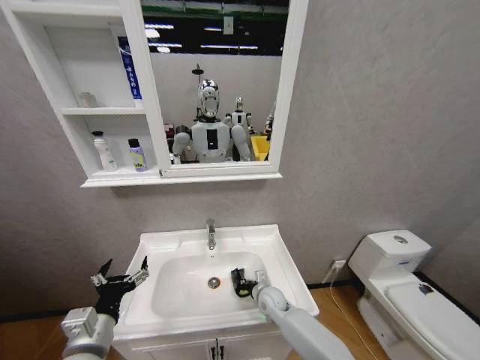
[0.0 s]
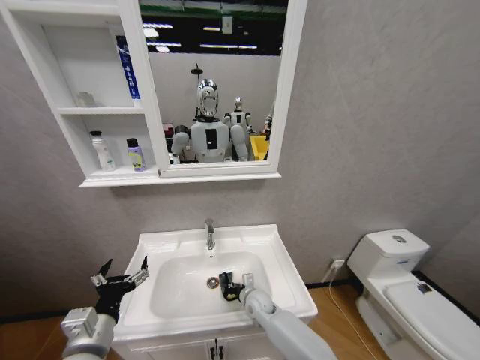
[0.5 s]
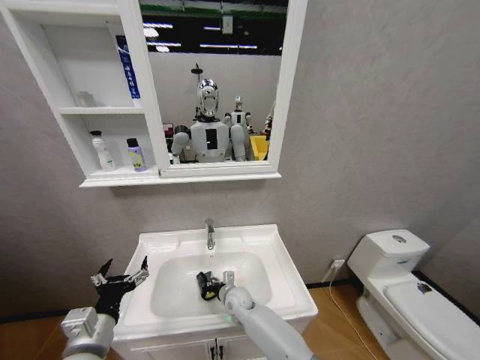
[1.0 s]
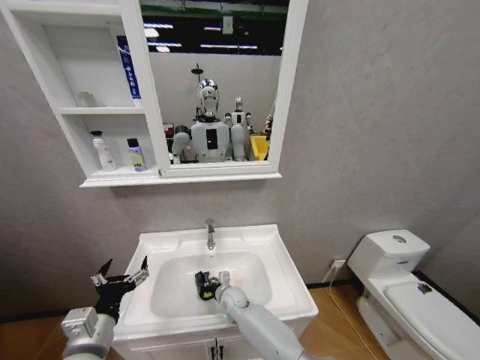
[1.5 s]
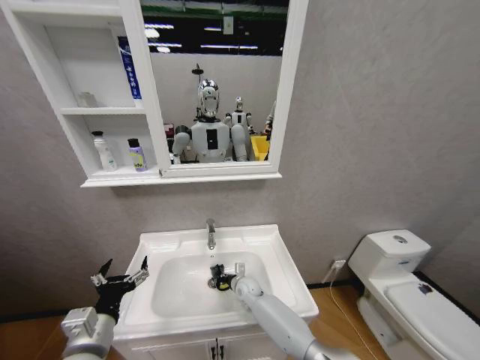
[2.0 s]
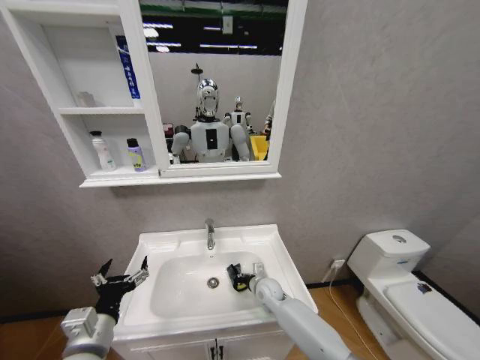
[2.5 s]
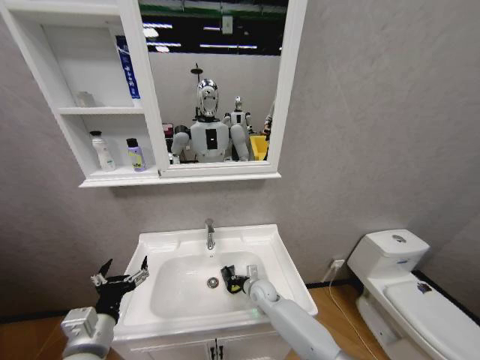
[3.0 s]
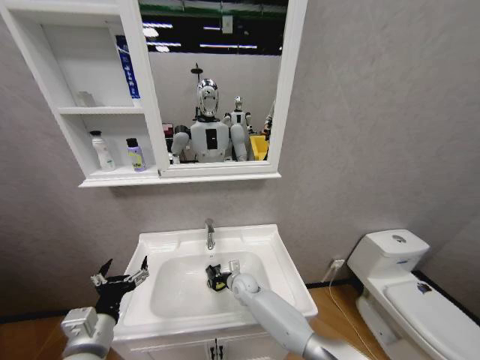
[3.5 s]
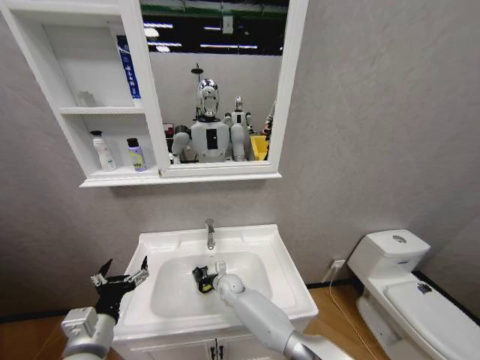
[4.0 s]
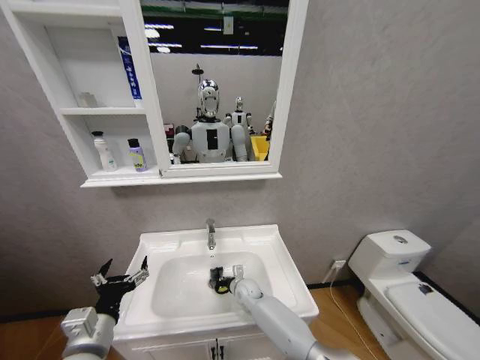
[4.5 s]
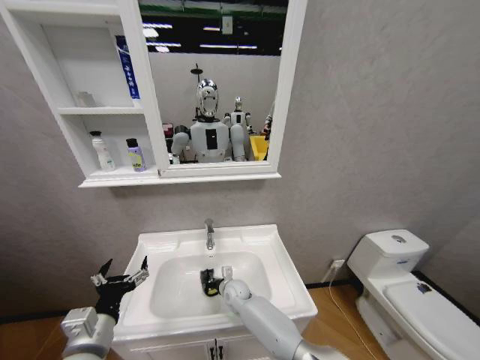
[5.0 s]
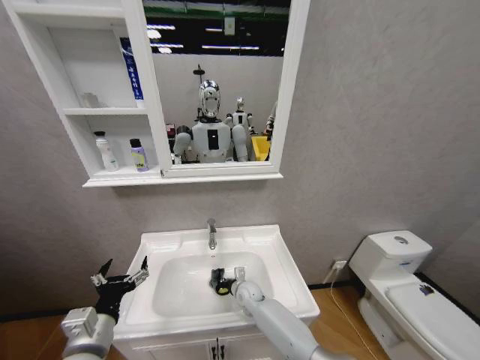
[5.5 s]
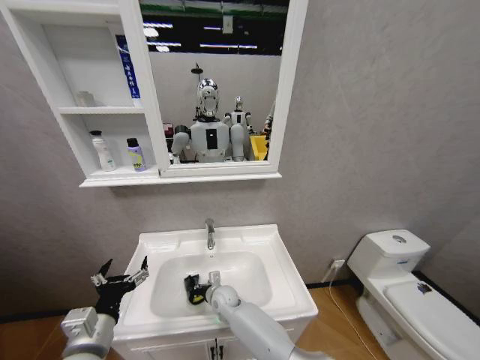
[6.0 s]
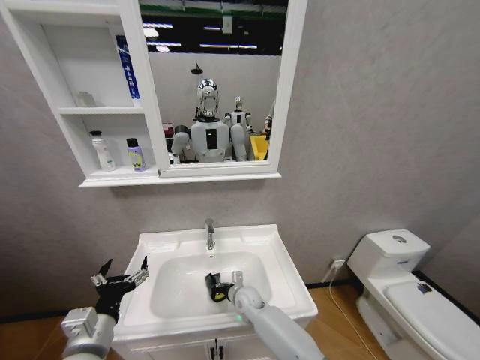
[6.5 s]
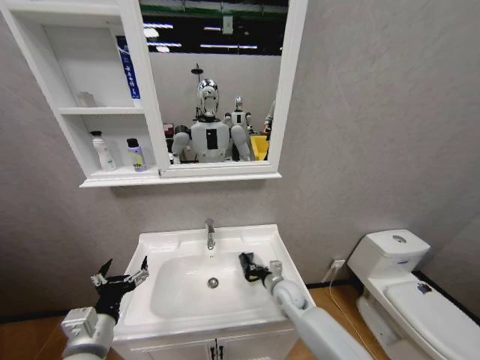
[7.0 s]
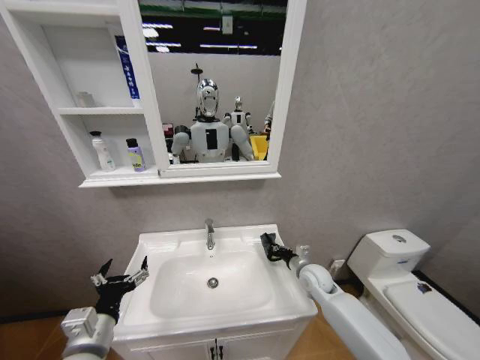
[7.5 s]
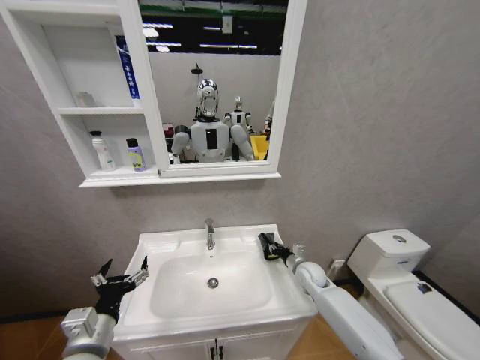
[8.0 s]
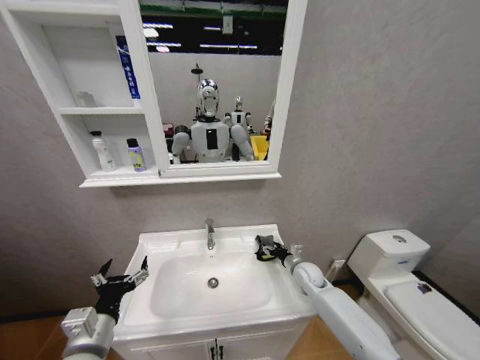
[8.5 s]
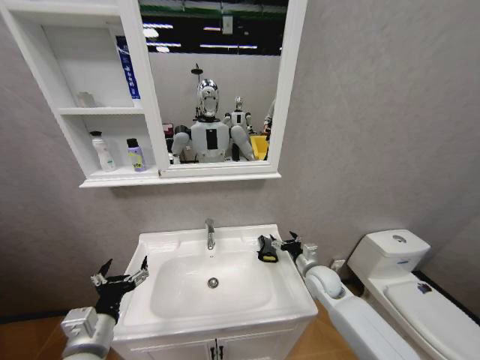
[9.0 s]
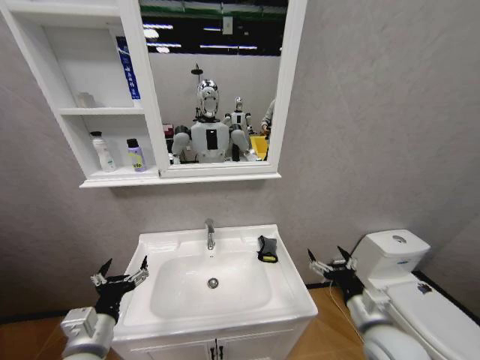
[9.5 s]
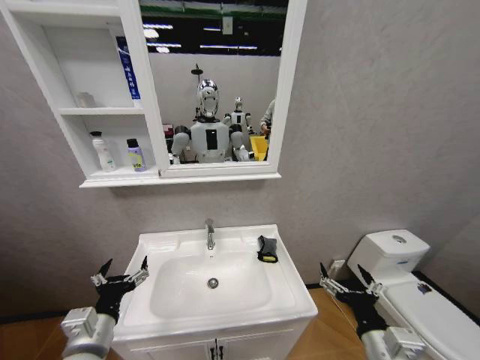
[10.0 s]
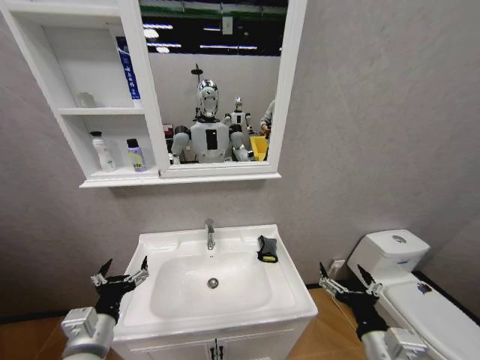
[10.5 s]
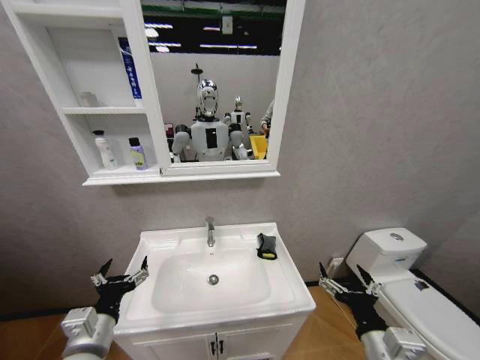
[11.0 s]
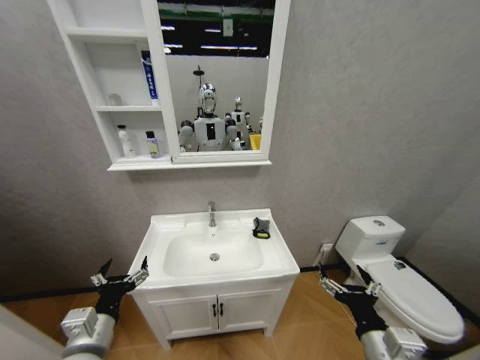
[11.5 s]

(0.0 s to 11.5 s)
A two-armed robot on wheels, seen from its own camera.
Task of the whole recording: Move facial cleanser and shampoo from washbasin to cabinet, then wipe washbasin with towel.
0.0 s - 2.0 s: The right gripper goes some 10 cm to the left and forward.
2.0 s - 4.0 s: The right gripper goes approximately 5 cm to the left.
4.0 s - 6.0 s: The right gripper goes left and right, about 10 cm each way, reversing 3 times.
6.0 s - 7.5 s: The right gripper heads to the right, covering roughly 30 cm.
7.5 s - 9.5 s: The right gripper travels backward and upward by about 20 cm, and opens up.
9.5 s - 11.5 s: The right gripper travels backward by approximately 10 cm.

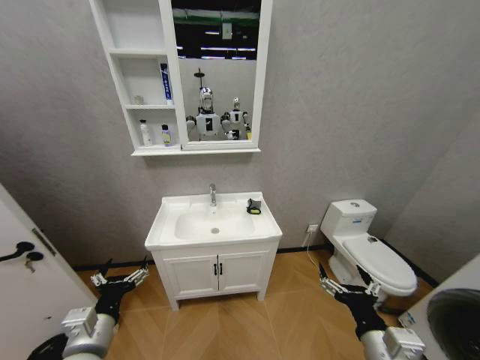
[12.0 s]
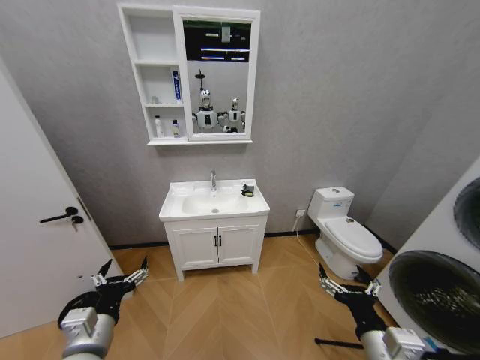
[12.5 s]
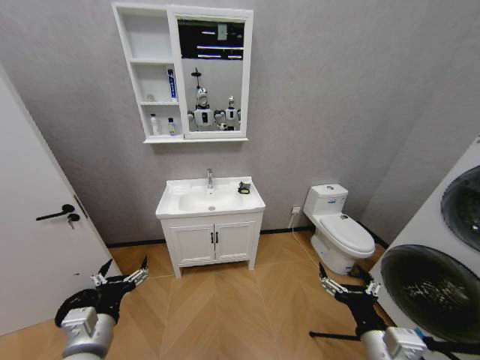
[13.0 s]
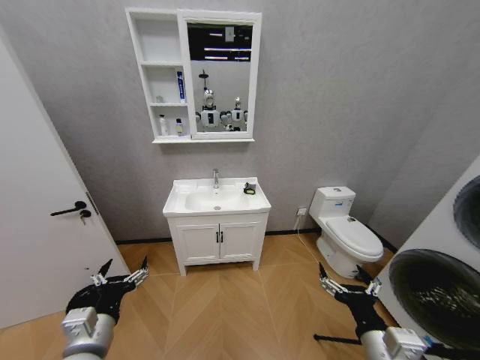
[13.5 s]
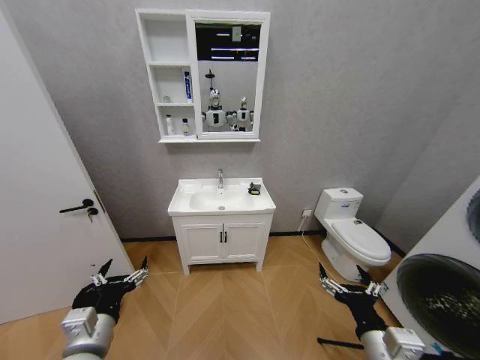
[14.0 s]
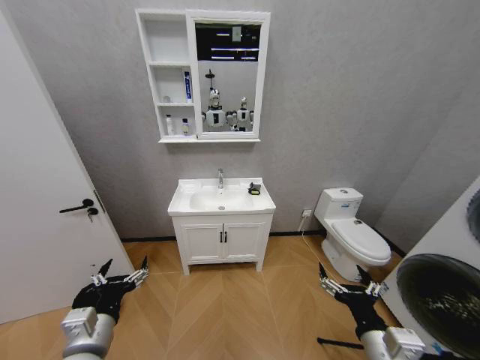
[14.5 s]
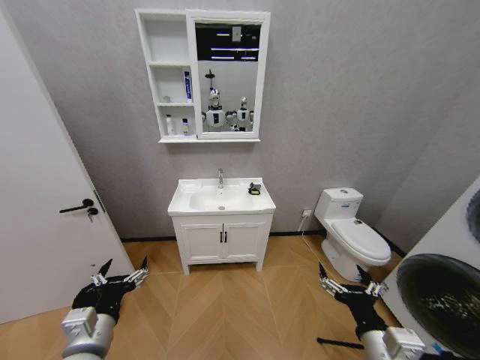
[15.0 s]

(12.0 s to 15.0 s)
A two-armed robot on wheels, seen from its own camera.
Task of the whole recording: Move facial cleanser and shampoo from washbasin to cabinet, then wipe washbasin with towel.
13.5 s - 15.0 s: Both grippers stay about where they are.
